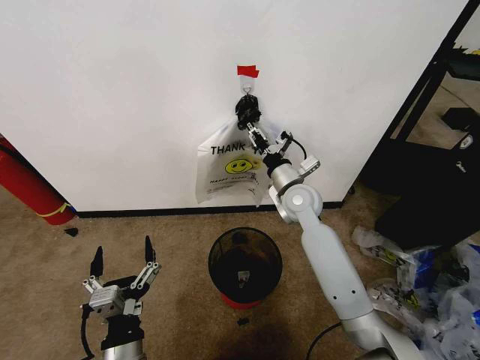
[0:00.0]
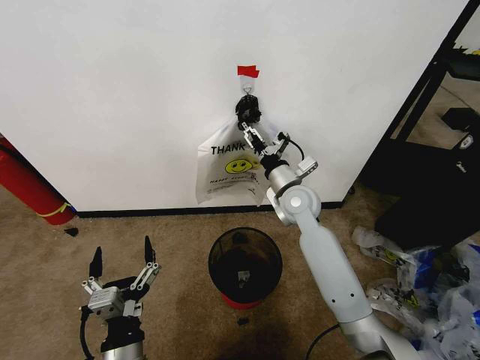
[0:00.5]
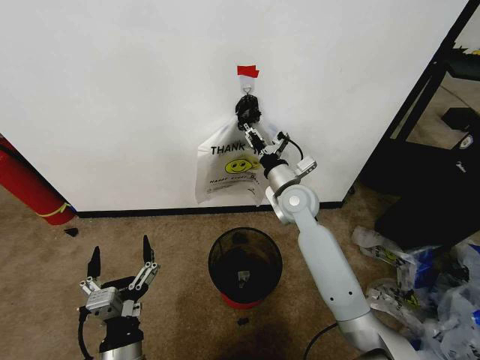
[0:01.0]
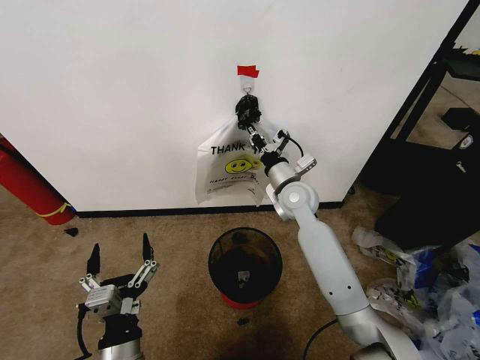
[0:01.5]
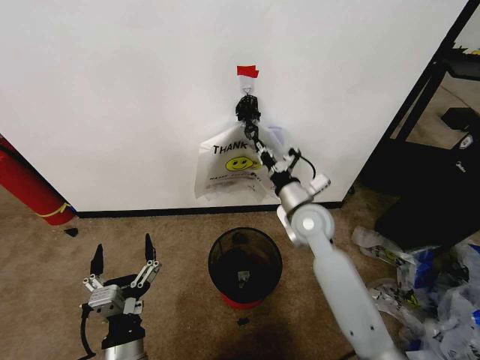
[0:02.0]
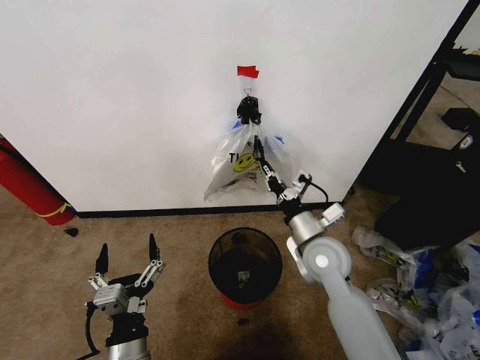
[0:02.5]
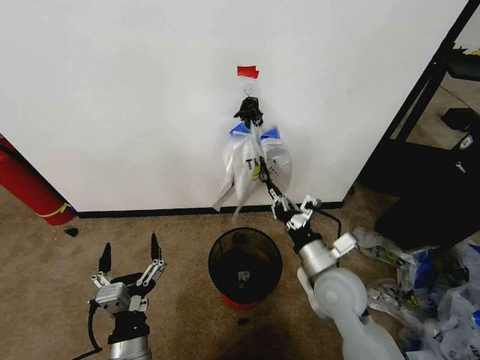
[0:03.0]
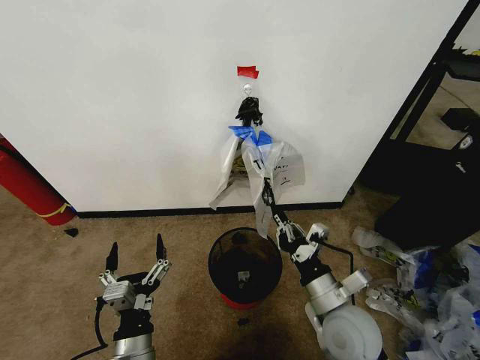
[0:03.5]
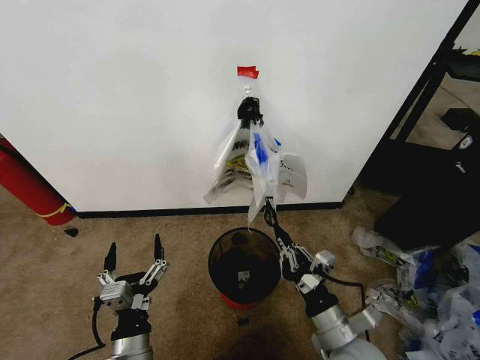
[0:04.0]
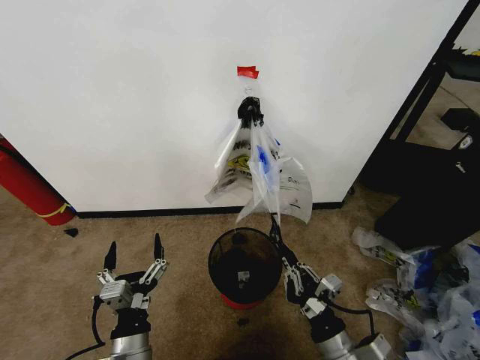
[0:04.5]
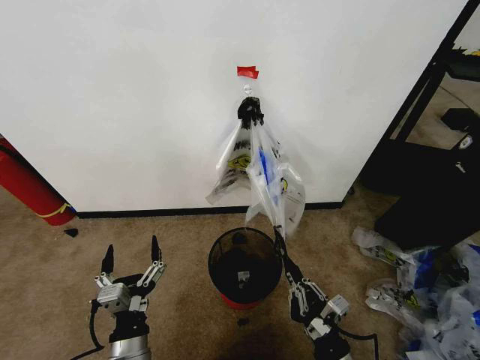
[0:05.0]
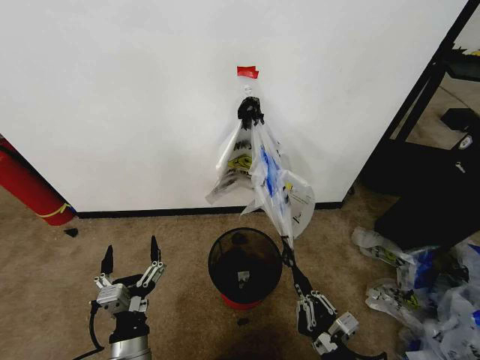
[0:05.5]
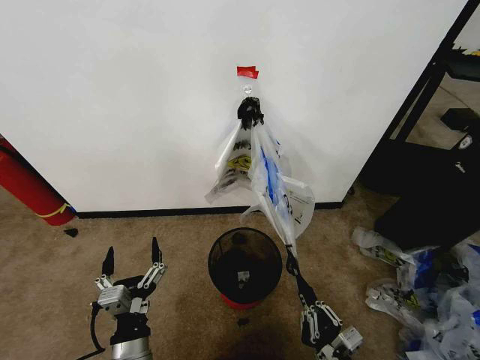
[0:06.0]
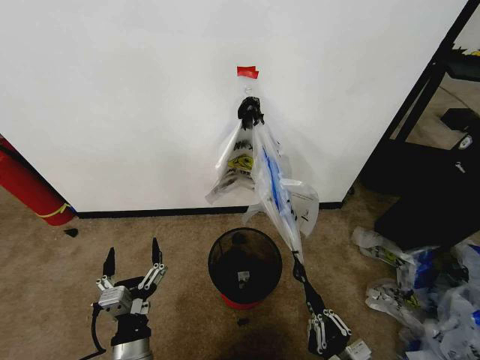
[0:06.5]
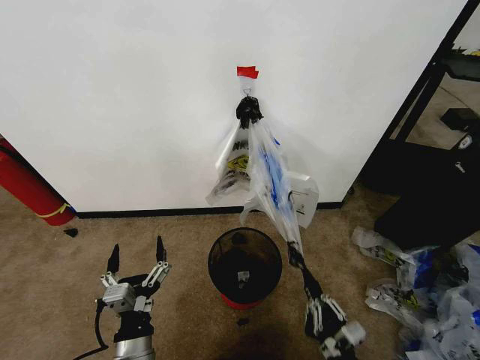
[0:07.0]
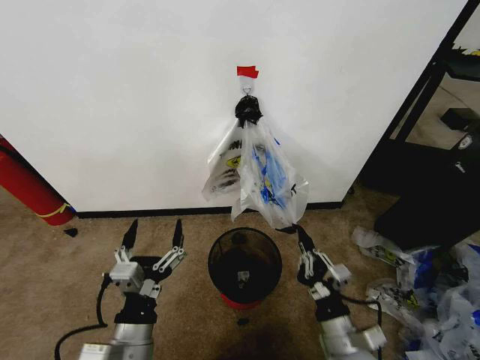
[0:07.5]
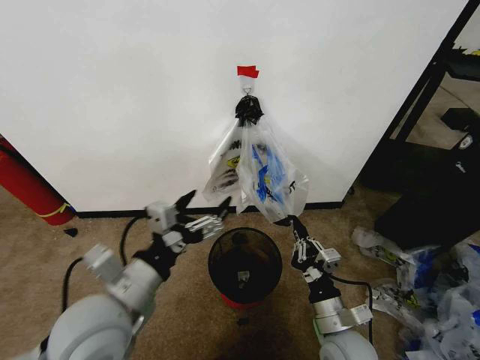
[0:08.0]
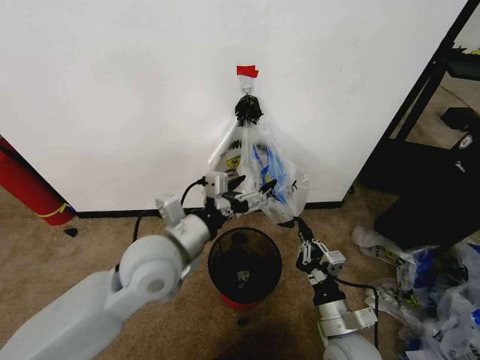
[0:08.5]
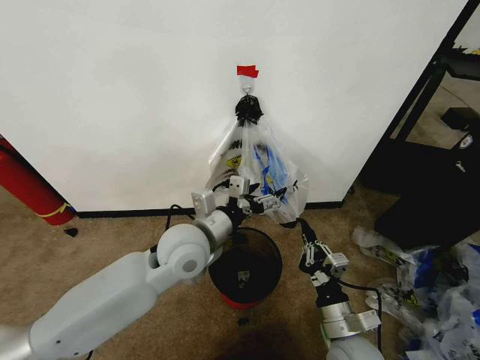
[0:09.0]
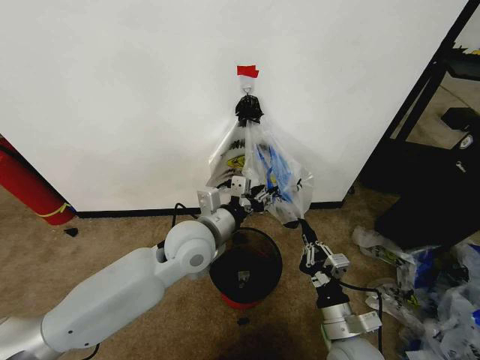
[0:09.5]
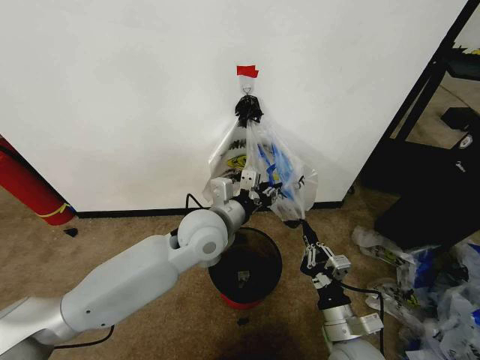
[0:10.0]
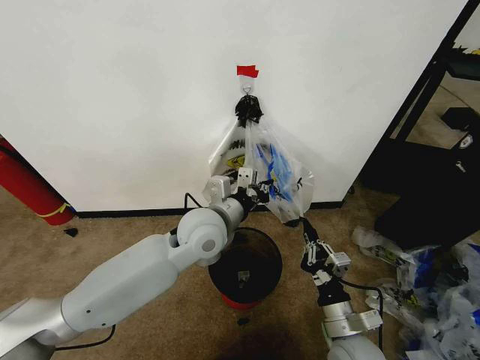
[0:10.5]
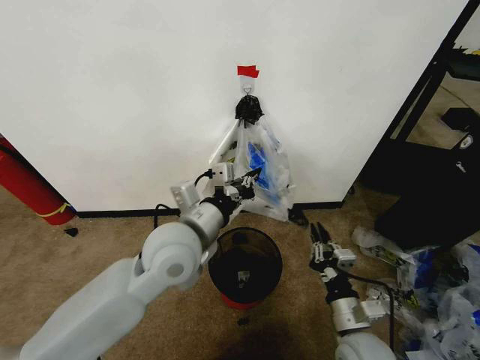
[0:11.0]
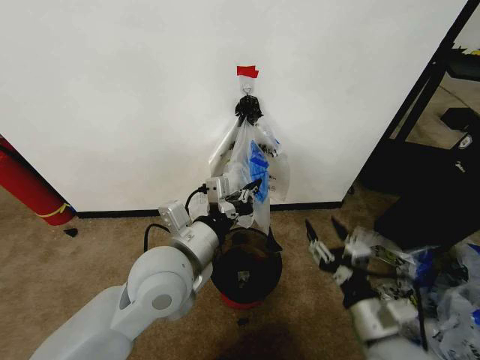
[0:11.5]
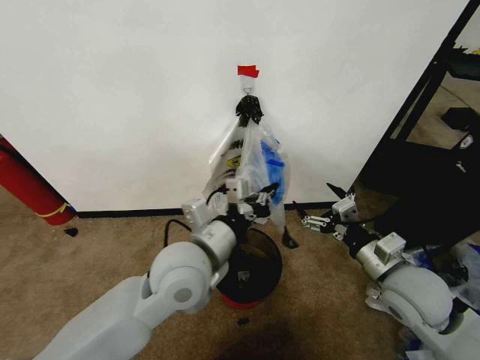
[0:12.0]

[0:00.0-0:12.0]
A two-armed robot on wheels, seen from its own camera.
Task of the whole recording: Pick up the garbage bag from the wall and place it over the trash bin.
0:00.0 to 0:02.0: The right gripper heads backward, covering roughly 5 cm, and closes its fingers.
0:02.0 to 0:04.0: The right gripper travels backward by approximately 25 cm.
0:04.0 to 0:06.0: The right gripper heads backward and downward, covering some 15 cm.
0:06.0 to 0:08.0: The left gripper shifts approximately 15 cm upward; the right gripper heads forward, covering approximately 10 cm.
0:08.0 to 0:10.0: The left gripper is displaced forward and to the right by roughly 20 cm, and closes its fingers.
0:10.0 to 0:12.0: The left gripper heads backward, covering about 10 cm, and closes its fingers. The right gripper heads upward, to the right and forward, covering about 20 cm, and opens.

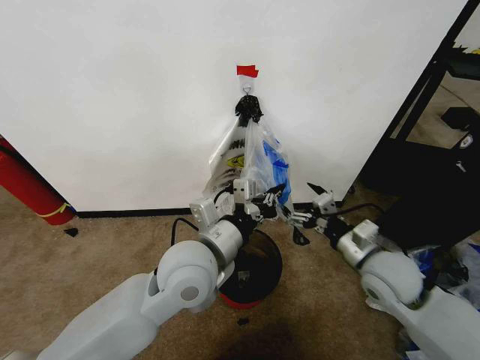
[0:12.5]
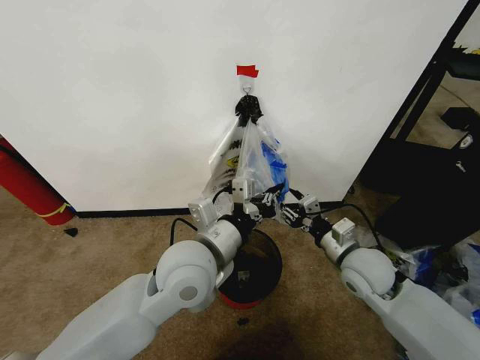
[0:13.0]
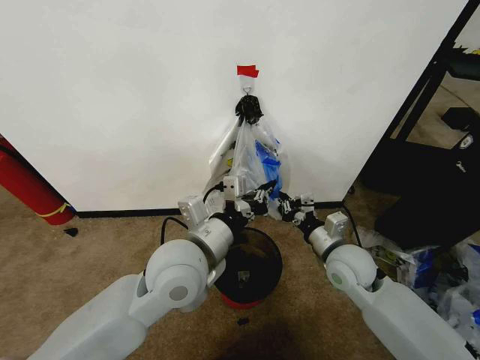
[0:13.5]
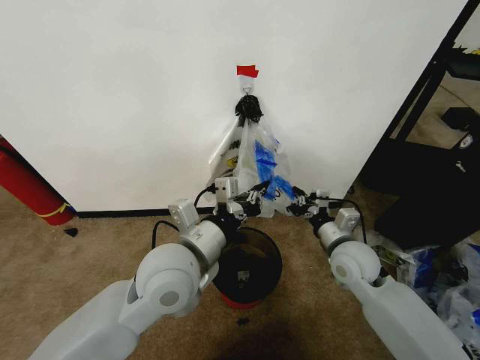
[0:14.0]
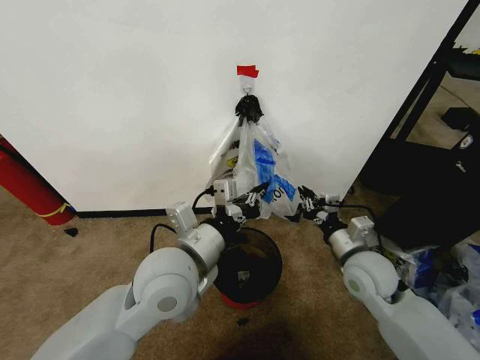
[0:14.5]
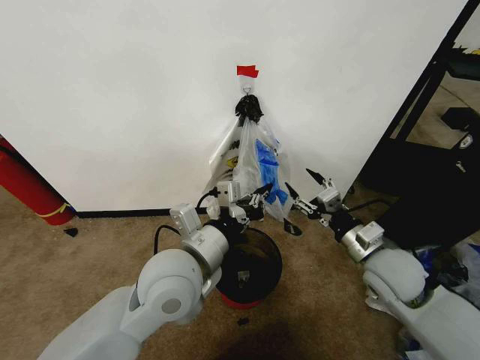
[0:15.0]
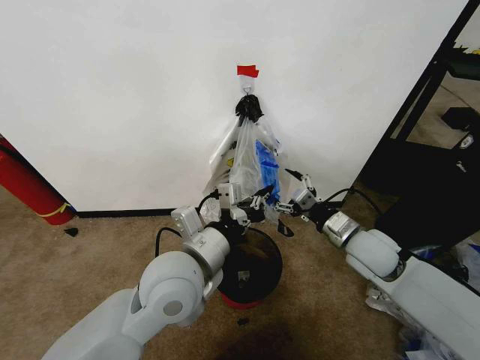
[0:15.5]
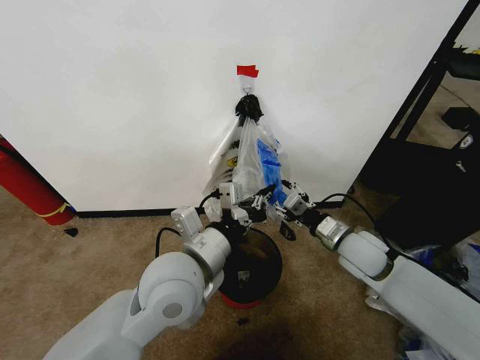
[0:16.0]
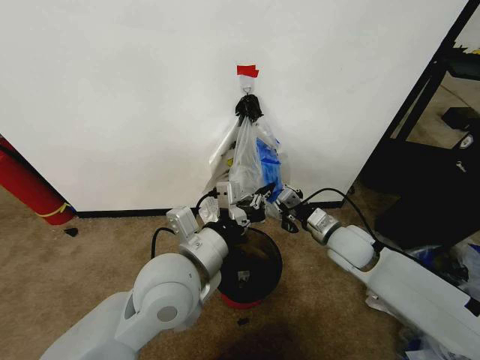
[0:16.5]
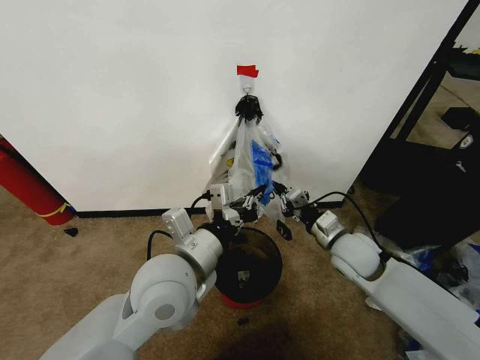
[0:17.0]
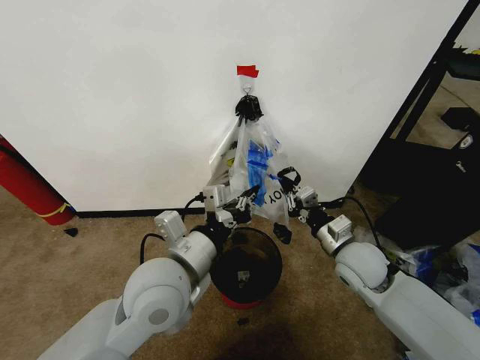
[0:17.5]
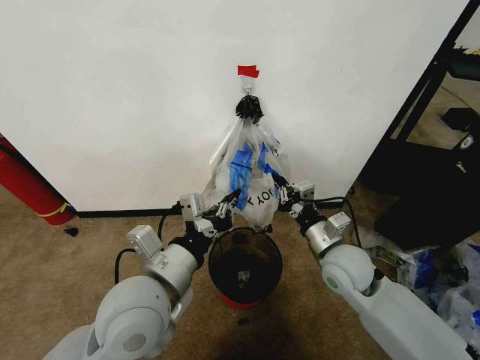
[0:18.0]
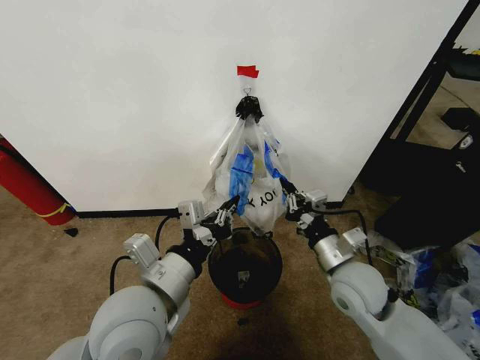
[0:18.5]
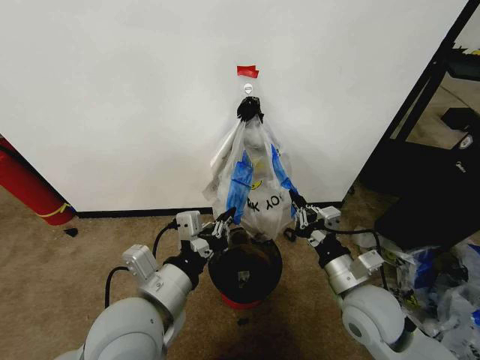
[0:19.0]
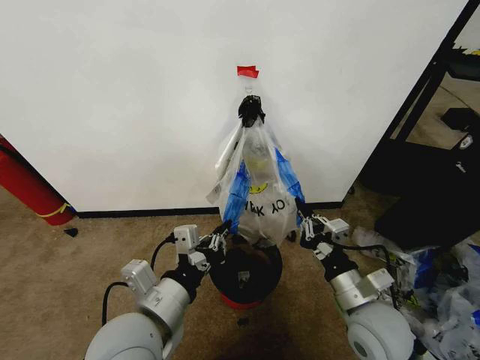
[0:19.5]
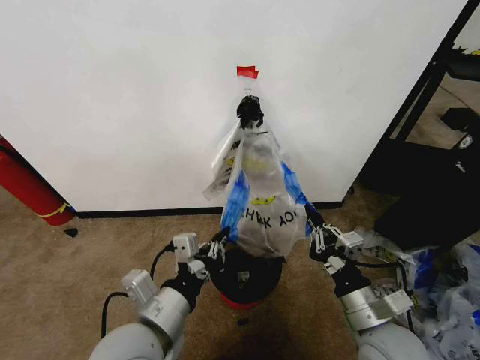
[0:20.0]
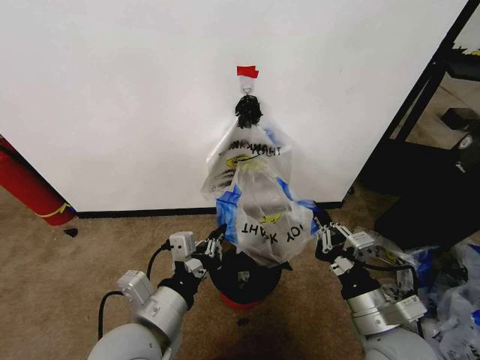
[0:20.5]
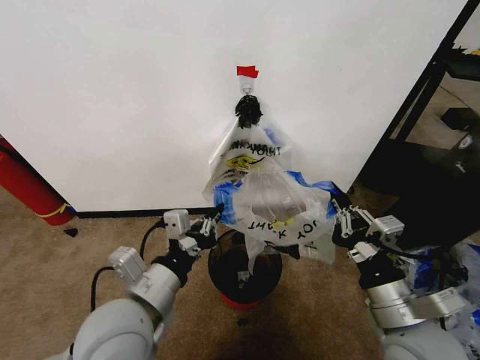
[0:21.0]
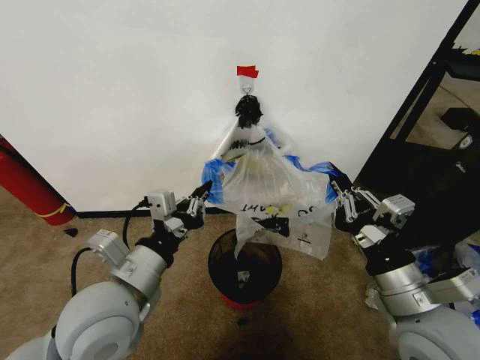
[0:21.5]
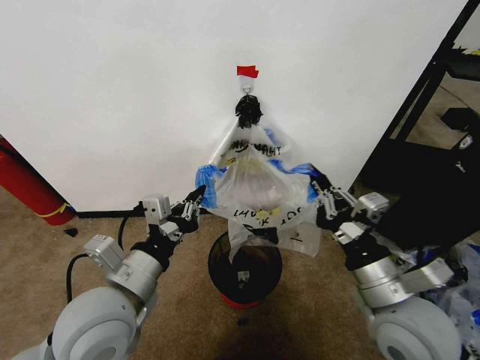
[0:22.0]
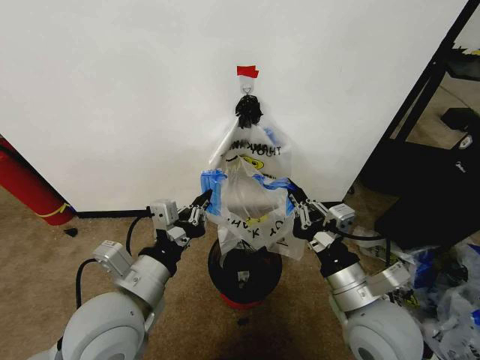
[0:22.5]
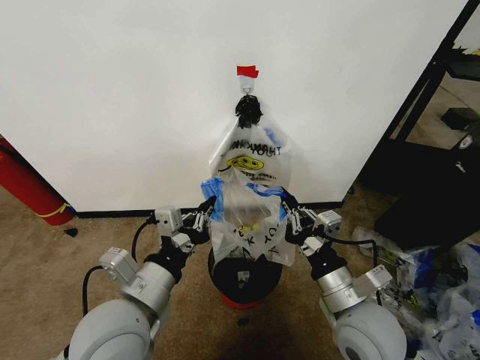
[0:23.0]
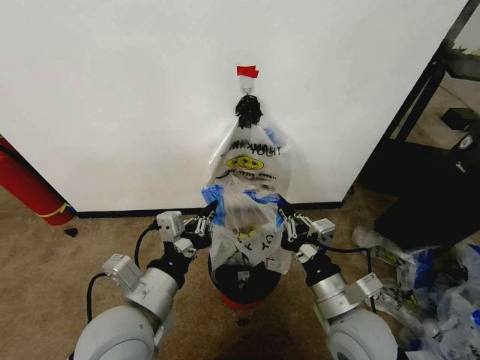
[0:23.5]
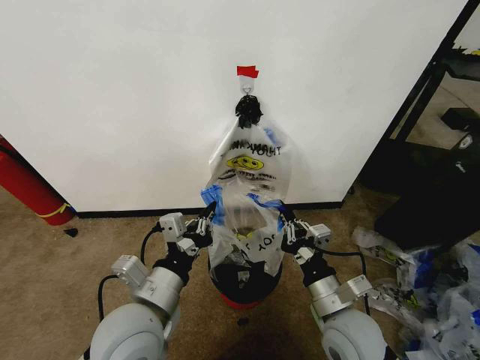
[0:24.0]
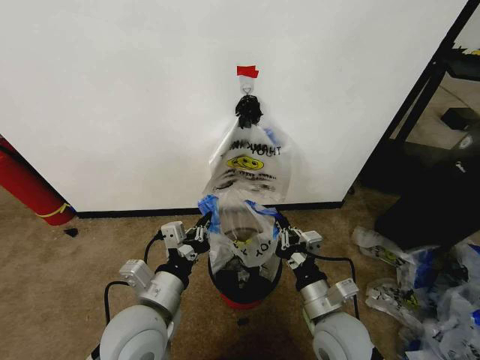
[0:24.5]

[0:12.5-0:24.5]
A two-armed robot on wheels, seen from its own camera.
Task of the whole recording: Pick up the garbage bag from the wall and place it over the trash bin.
0:12.5 to 0:14.5: The right gripper closes its fingers.
0:14.5 to 0:16.5: The right gripper is displaced forward by about 5 cm, and opens and closes again.
0:16.5 to 0:18.5: The right gripper heads backward, covering some 10 cm; the left gripper changes place by approximately 5 cm.
0:18.5 to 0:20.5: The left gripper shifts by some 5 cm. The right gripper travels backward by some 10 cm.
0:20.5 to 0:22.5: The left gripper shifts by about 5 cm. The right gripper ends up approximately 5 cm from where it was.
0:22.5 to 0:24.5: Both grippers move downward, about 10 cm.

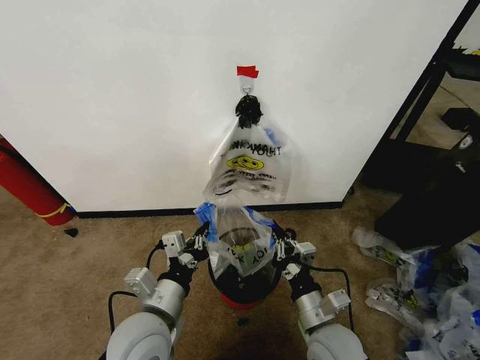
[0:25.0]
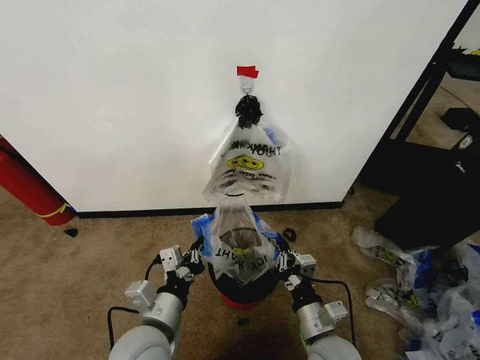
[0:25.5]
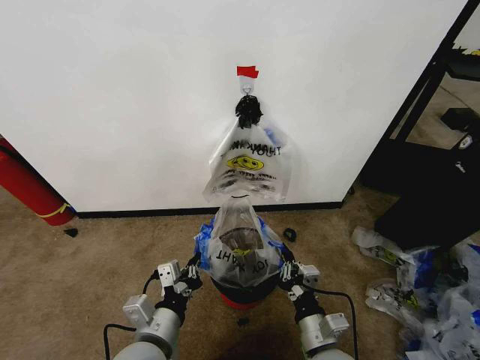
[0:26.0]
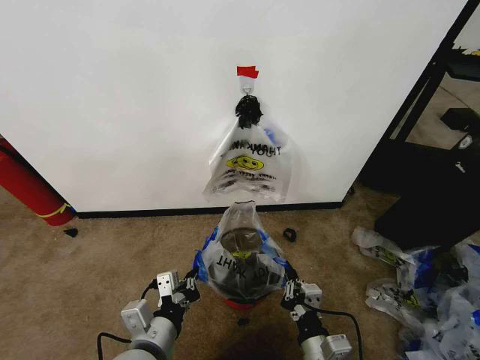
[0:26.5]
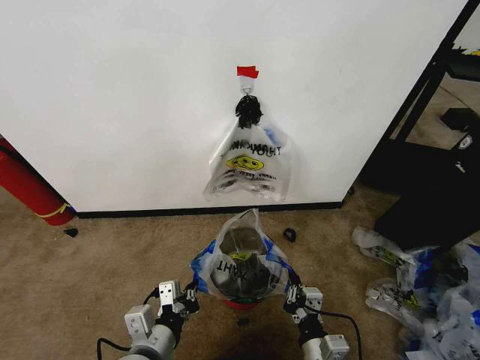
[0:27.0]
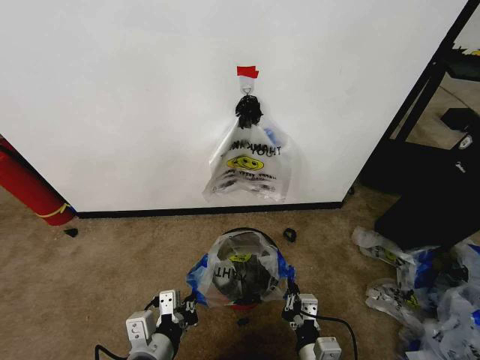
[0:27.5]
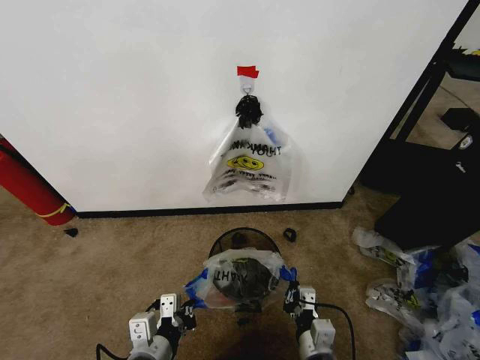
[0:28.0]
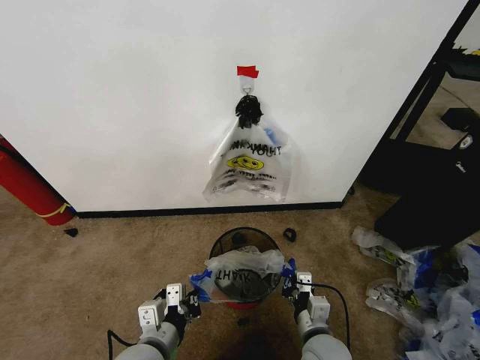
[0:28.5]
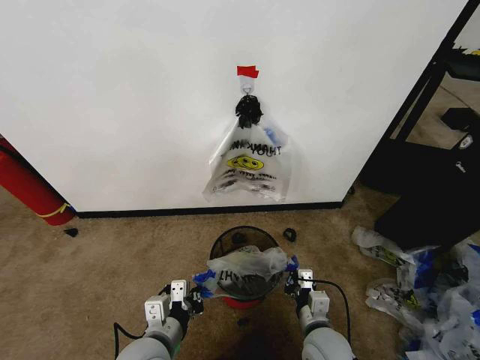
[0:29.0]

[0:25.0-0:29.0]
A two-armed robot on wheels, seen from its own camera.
Task of the whole recording: Pick up the garbage bag from the wall and place it over the trash bin.
0:25.0 to 0:27.0: The right gripper heads backward and downward, covering approximately 10 cm. Meanwhile the left gripper is displaced backward by some 5 cm.
0:27.0 to 0:29.0: The right gripper goes roughly 10 cm forward.
